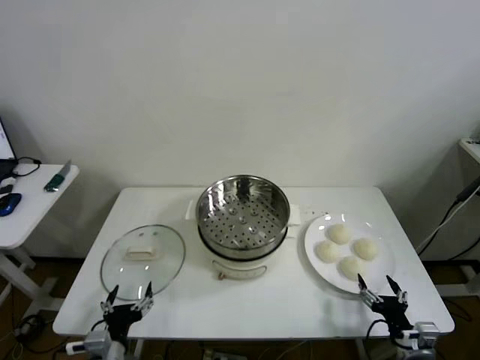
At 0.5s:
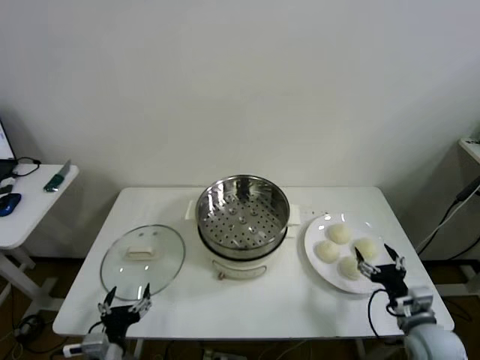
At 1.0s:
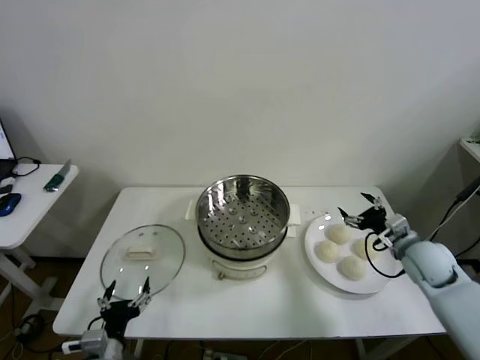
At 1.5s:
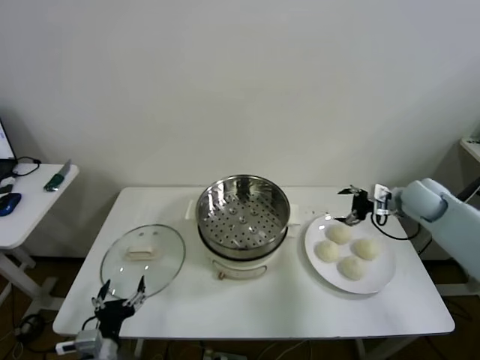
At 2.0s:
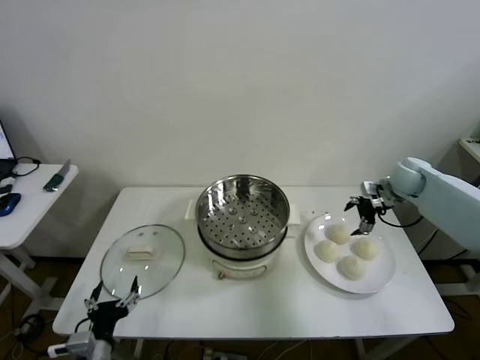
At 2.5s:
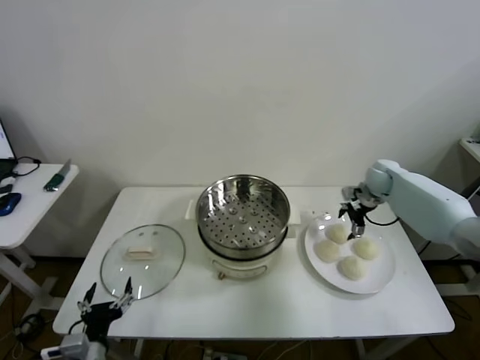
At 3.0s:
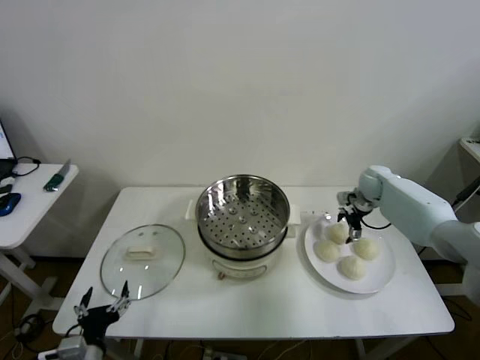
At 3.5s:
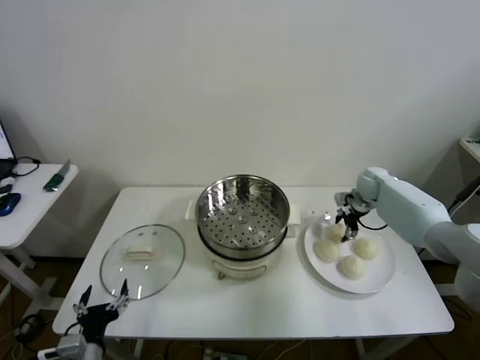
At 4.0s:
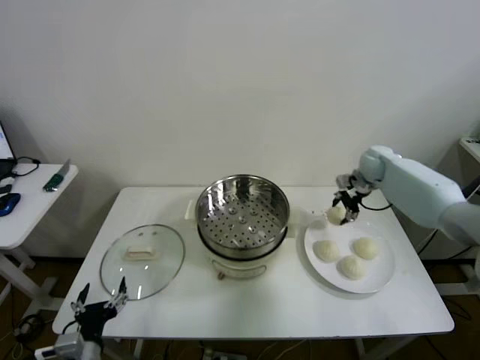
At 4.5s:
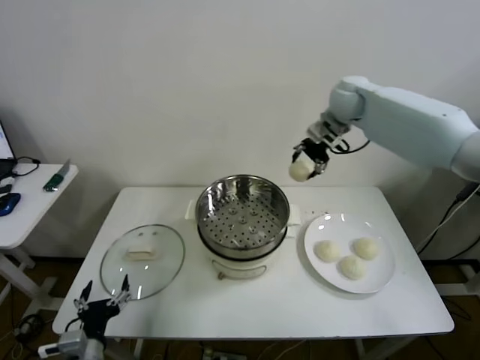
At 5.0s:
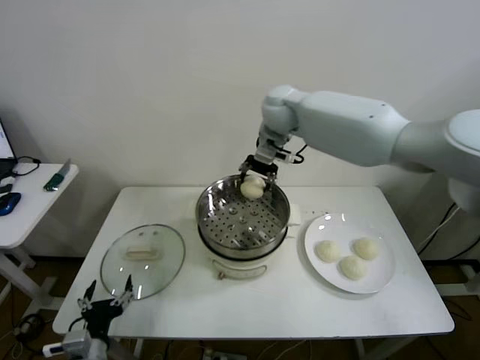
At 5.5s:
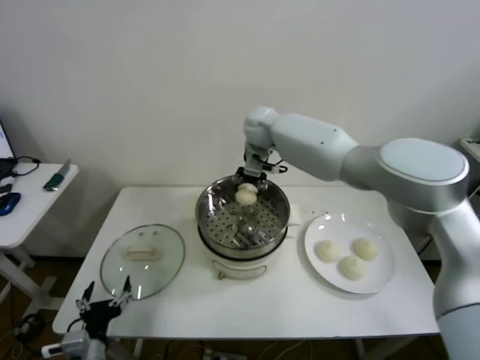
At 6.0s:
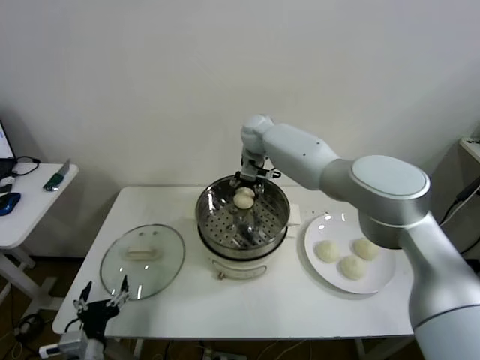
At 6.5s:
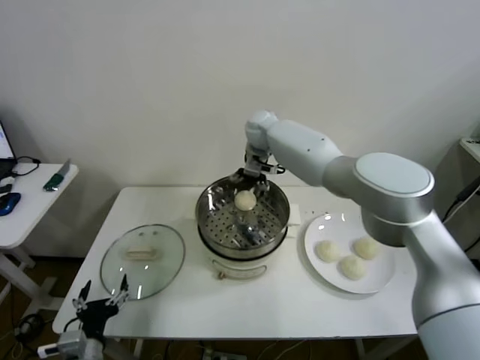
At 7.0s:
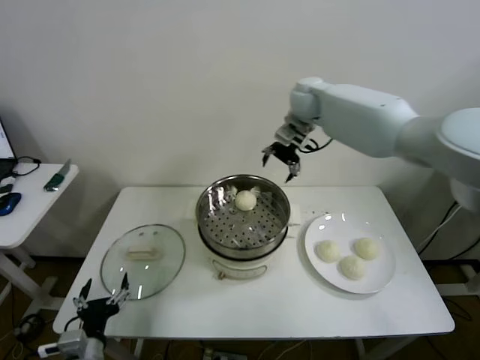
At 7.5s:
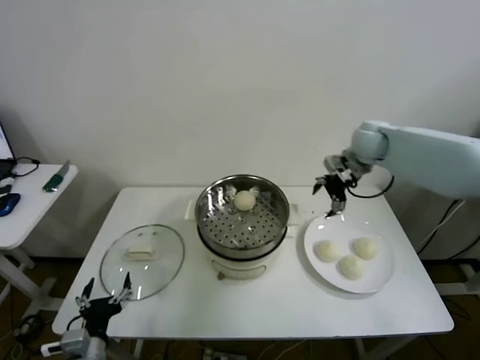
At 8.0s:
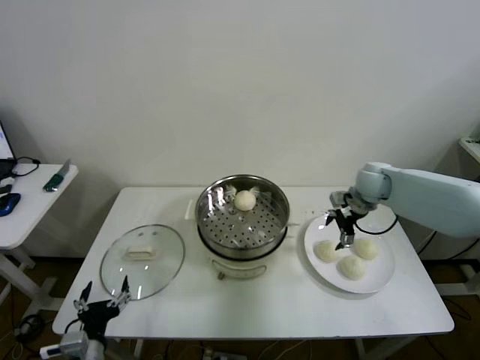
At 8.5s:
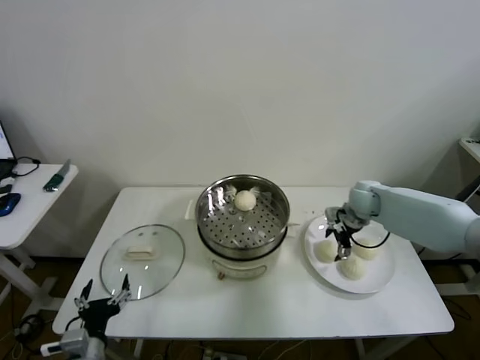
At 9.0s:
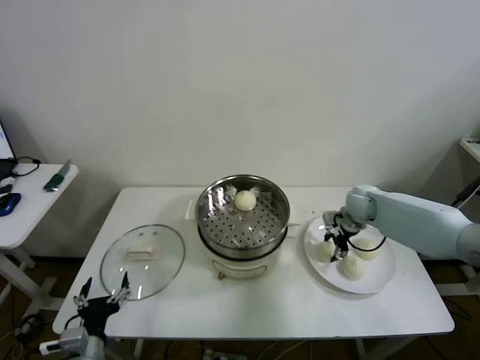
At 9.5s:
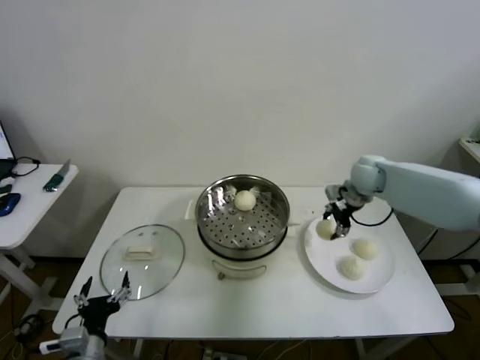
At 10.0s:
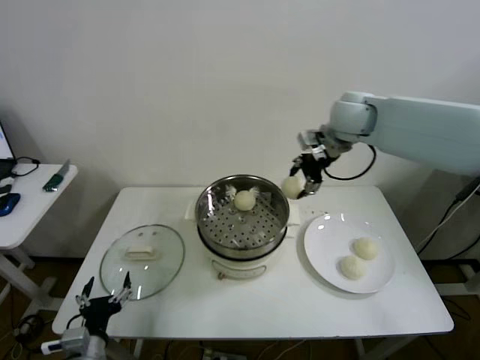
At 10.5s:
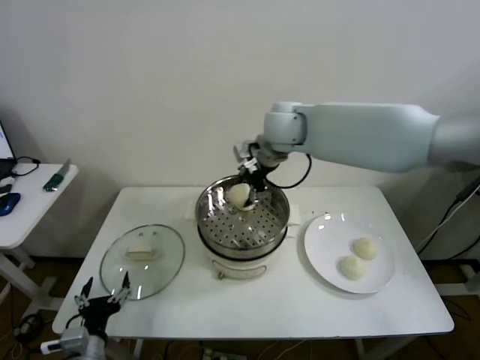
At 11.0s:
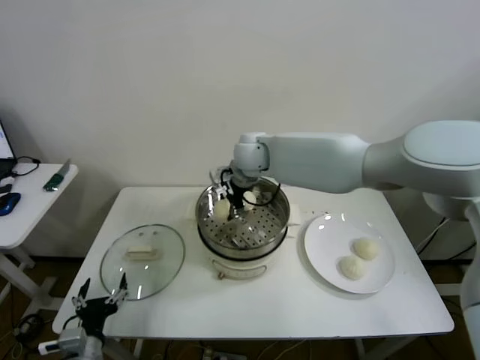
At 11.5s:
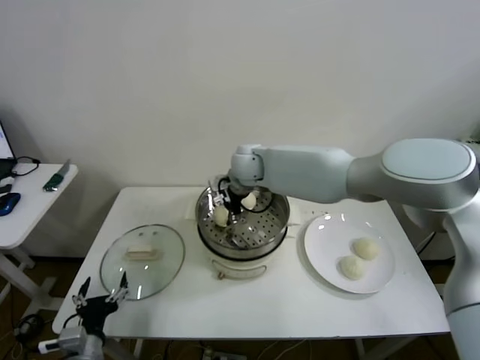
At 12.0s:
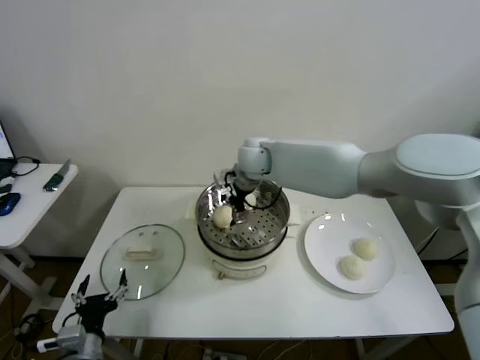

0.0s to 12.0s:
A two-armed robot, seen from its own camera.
Step, 0.0s to 3.0s: Grasp the baozi in the plate with right gripper.
Step, 3.5s to 6.0s: Place the baozi on the steamer with right gripper.
Step, 6.5s to 8.5s: Grasp the baozi in the plate with right gripper.
Step, 9.0s to 11.5s: Place the baozi on the steamer with right gripper.
2.0s to 4.0s: The right gripper is displaced forward and to the left by roughly 10 cm, travels downward and back again, approximately 5 cm each way, and closes.
4.0s to 6.0s: The right gripper travels to the left by about 30 cm.
6.0s to 8.0s: The right gripper is displaced to the right by some 30 cm, and opens up.
8.0s to 10.0s: The right gripper is displaced upward and to the left by roughly 20 cm, and closes up.
10.0s to 12.0s: The right gripper heads to the left and downward, covering approximately 20 cm, and opens.

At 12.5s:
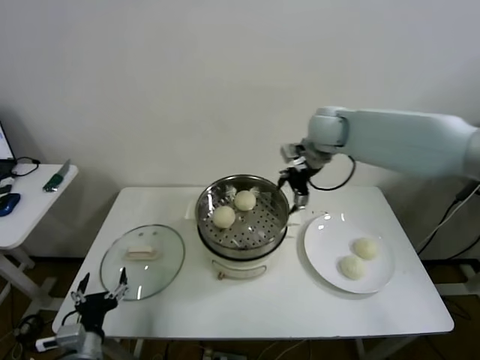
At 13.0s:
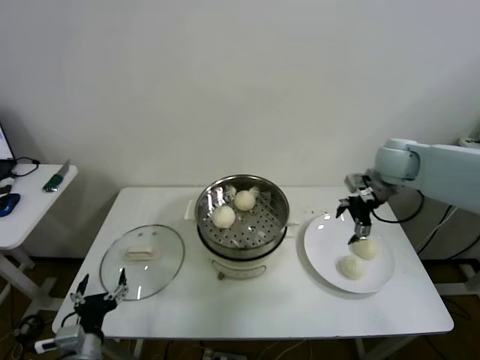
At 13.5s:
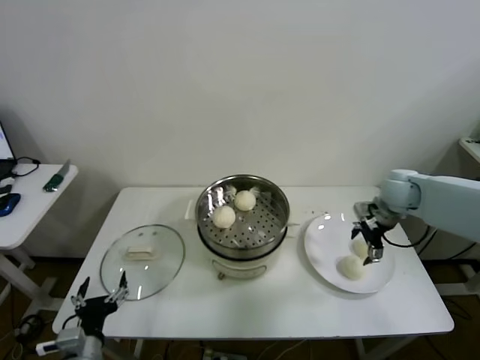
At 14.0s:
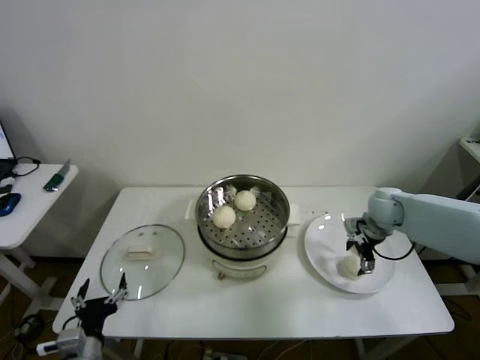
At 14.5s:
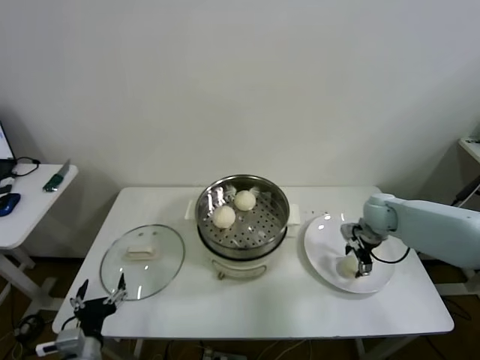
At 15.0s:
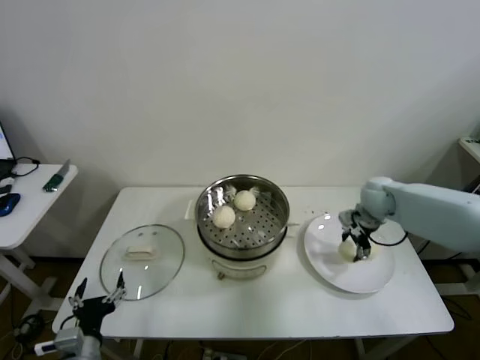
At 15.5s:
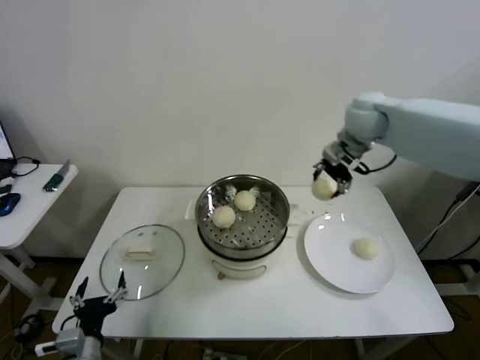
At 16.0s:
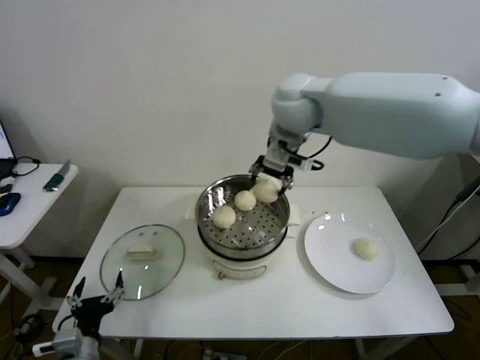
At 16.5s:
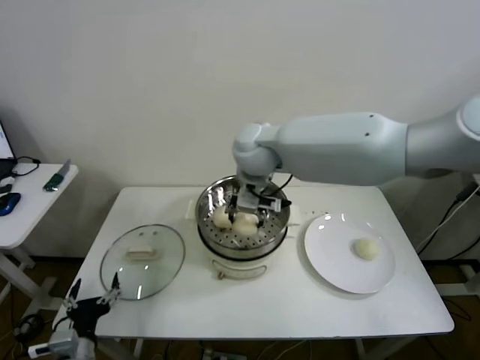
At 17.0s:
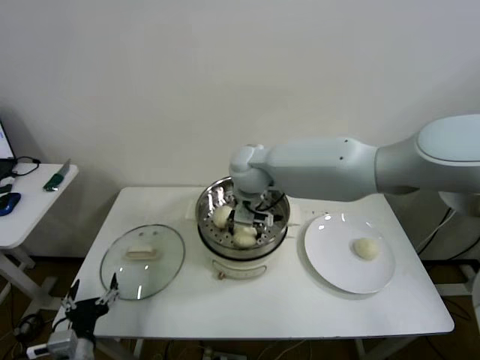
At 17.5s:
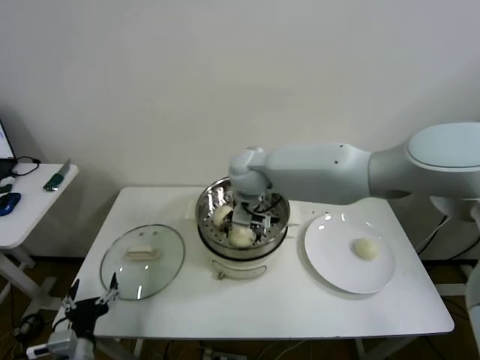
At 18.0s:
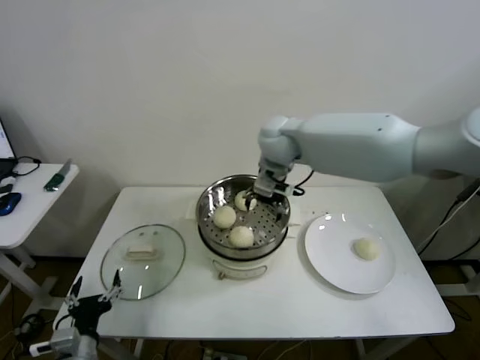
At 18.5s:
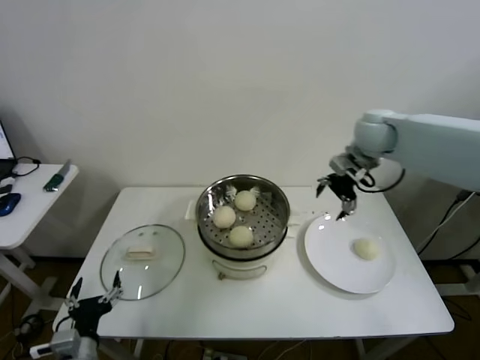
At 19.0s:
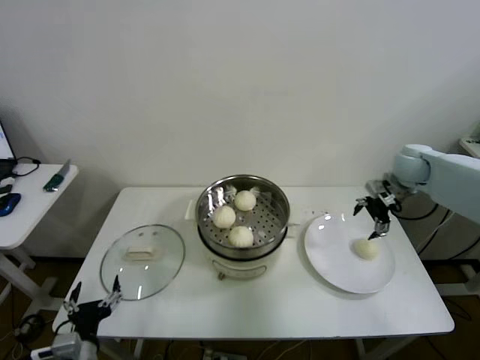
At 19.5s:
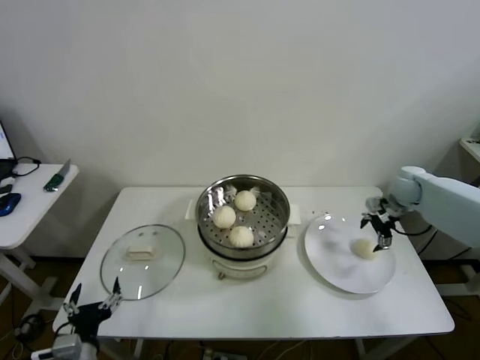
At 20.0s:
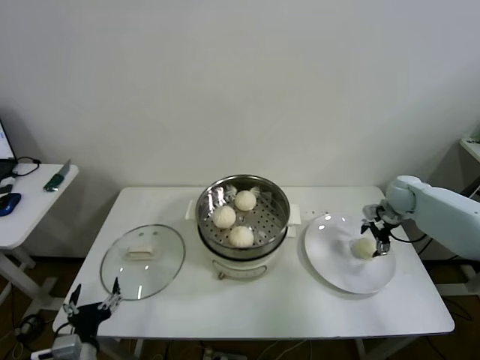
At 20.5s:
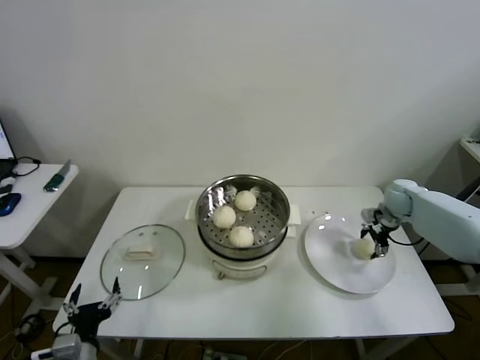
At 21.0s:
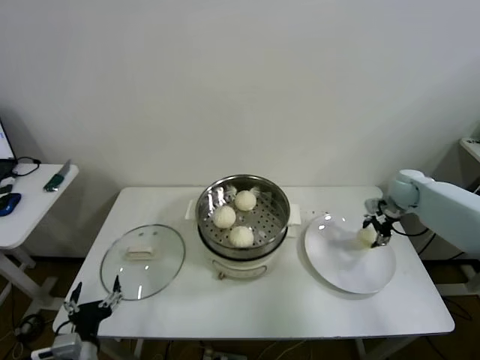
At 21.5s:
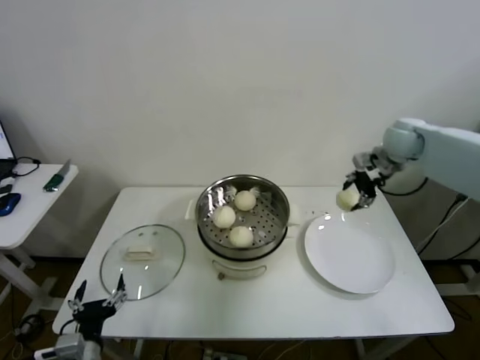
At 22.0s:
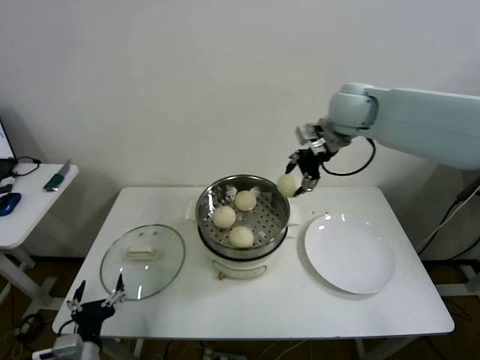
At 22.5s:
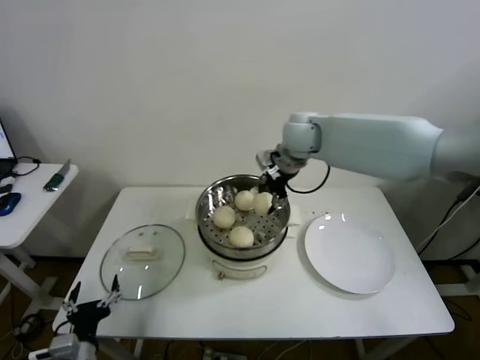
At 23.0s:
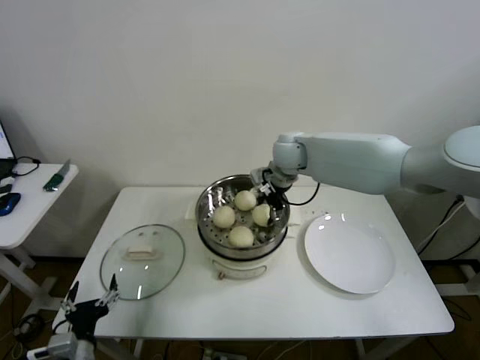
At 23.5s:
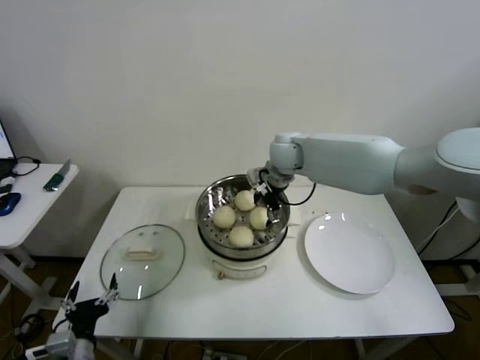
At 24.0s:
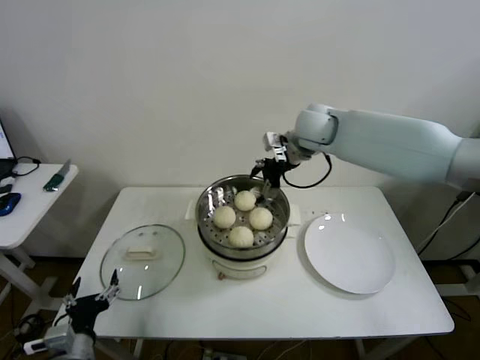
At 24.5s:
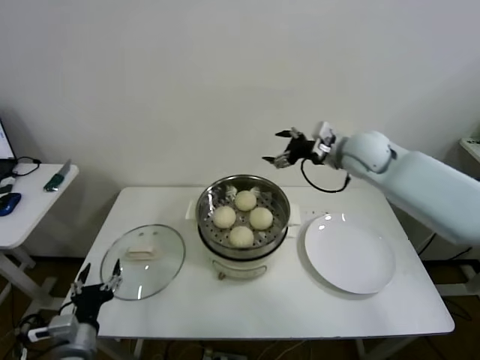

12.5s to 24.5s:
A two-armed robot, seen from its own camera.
Step, 12.5s to 14.5s: Grasp the baozi in the plate with right gripper.
Step, 15.0s to 17.5s: Place the baozi on the steamer with right gripper.
Step, 18.0s to 20.5s: Grasp the baozi in the plate with right gripper.
Step, 21.0s to 23.0s: Place the baozi on the steamer with right gripper.
12.5s to 14.5s: The right gripper heads downward and to the right, covering about 25 cm, and closes its fingers.
14.5s to 16.5s: The right gripper moves to the left and upward, approximately 40 cm.
16.5s to 18.5s: The right gripper goes some 25 cm to the right, and opens up.
18.5s to 20.5s: The right gripper moves downward and to the right, some 25 cm, and closes its fingers.
20.5s to 22.5s: The right gripper moves to the left and upward, some 35 cm, and closes up.
22.5s to 24.5s: The right gripper shifts approximately 10 cm to the right, and opens.

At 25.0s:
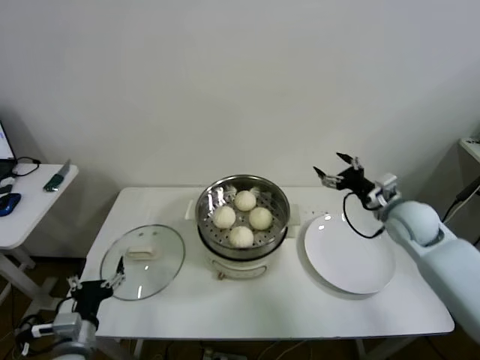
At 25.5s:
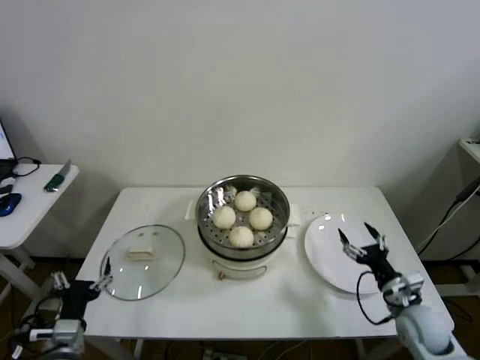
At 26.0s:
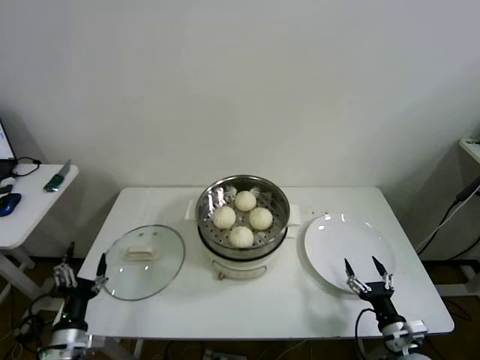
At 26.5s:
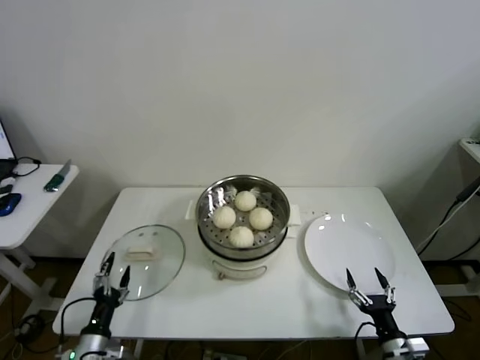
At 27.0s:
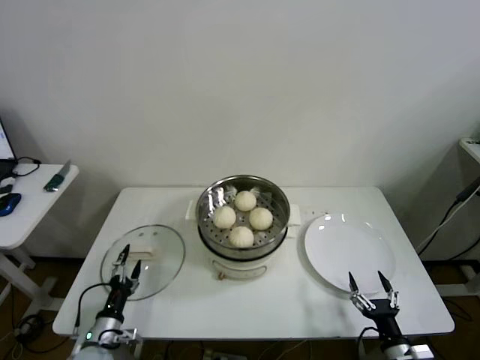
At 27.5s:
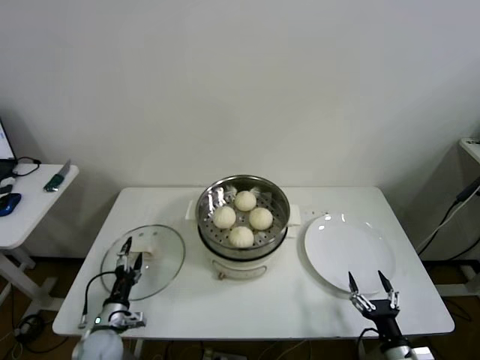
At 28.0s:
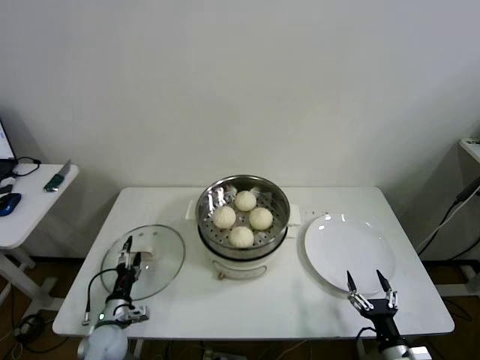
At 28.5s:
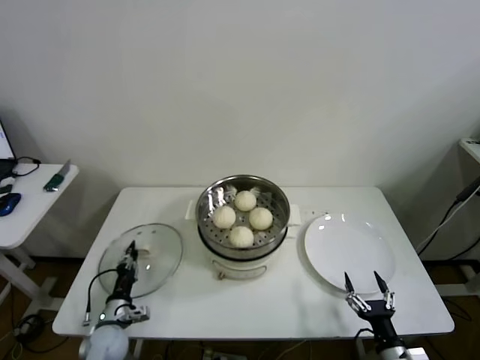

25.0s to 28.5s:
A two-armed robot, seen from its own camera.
25.0s to 27.0s: The right gripper goes approximately 40 cm backward and downward. Meanwhile the left gripper moves downward, about 15 cm.
27.0s to 28.5s: The left gripper is displaced forward by approximately 5 cm, and closes up.
